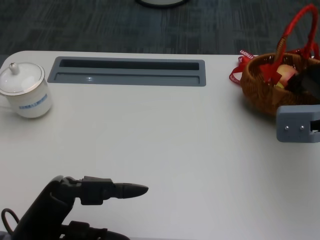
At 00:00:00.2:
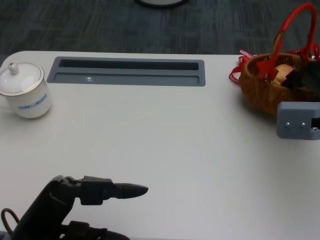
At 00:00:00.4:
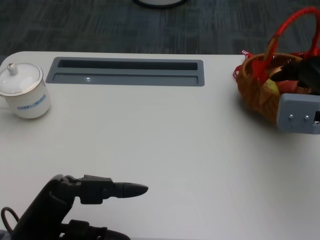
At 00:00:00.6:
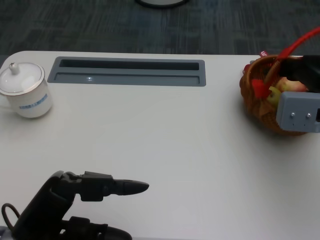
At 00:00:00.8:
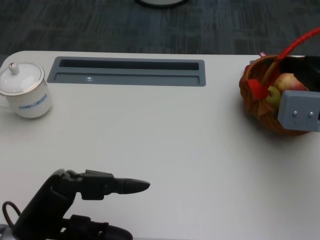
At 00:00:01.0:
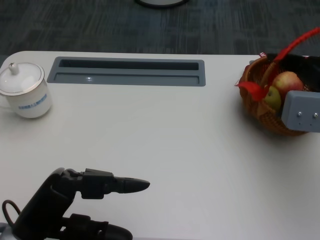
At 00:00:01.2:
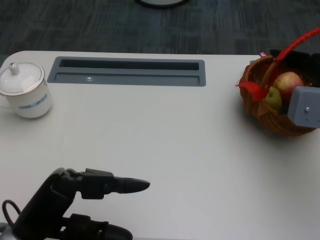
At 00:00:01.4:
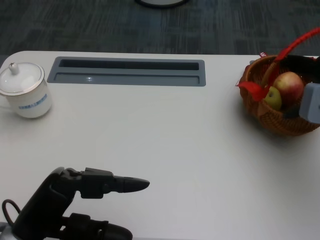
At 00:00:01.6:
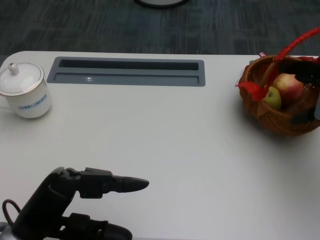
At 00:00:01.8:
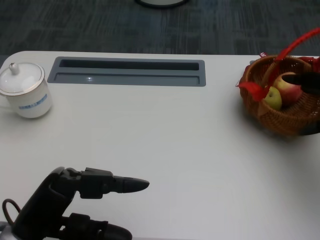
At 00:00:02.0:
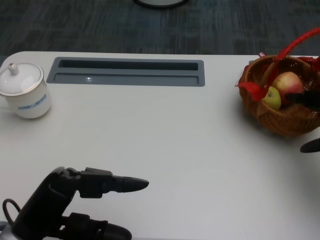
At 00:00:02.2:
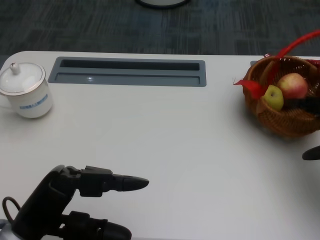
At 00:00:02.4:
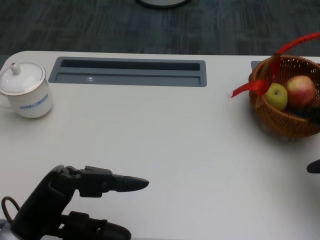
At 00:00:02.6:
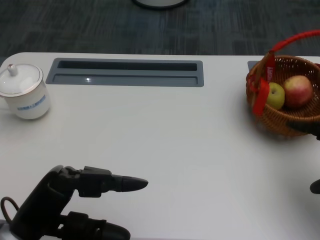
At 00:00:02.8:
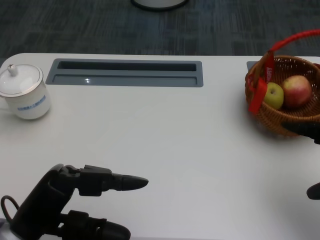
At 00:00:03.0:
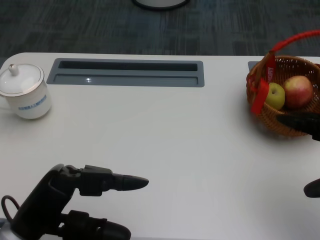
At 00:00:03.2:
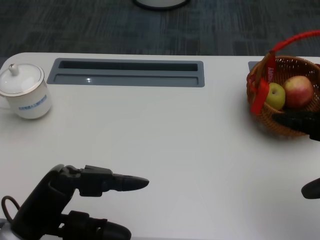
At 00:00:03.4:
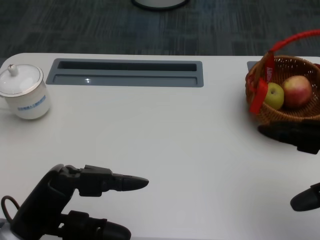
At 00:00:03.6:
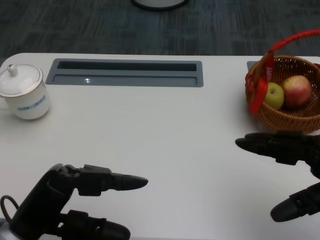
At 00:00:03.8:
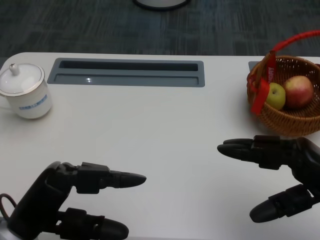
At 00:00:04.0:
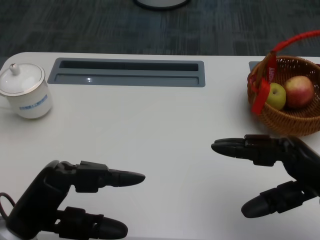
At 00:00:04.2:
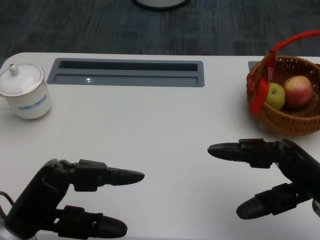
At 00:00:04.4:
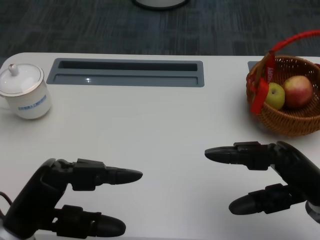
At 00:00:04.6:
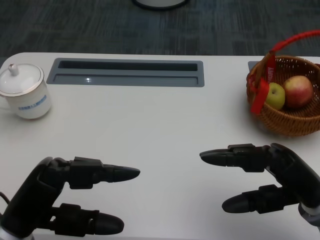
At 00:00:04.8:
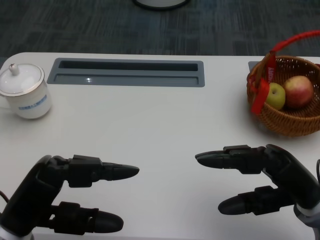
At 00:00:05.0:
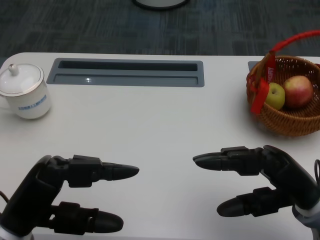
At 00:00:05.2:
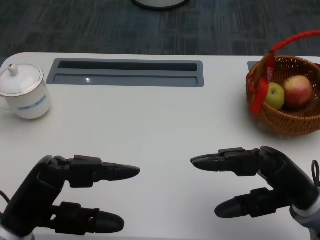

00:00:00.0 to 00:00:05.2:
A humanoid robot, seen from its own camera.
00:00:00.0 to 00:00:01.8: The right hand shifts by roughly 5 cm.
00:00:01.8 to 00:00:03.4: The right hand is displaced backward by approximately 10 cm.
00:00:03.4 to 00:00:05.2: The right hand is displaced to the left and downward by about 10 cm.
